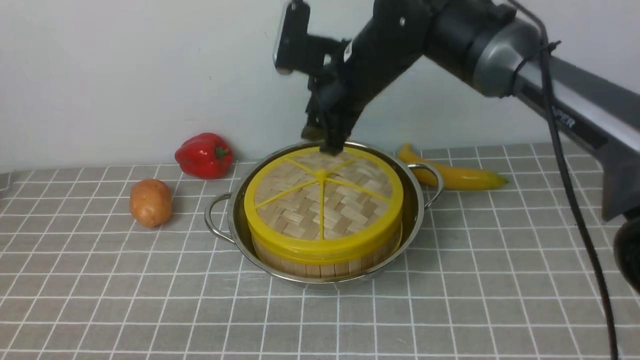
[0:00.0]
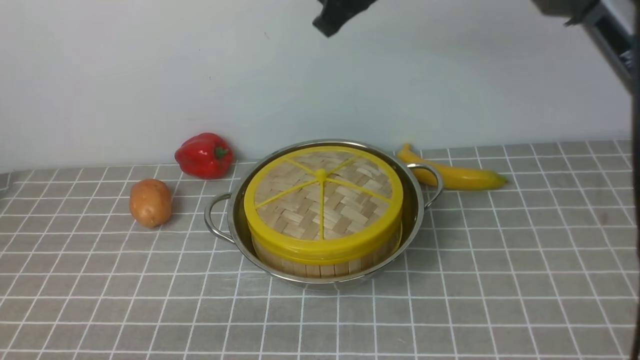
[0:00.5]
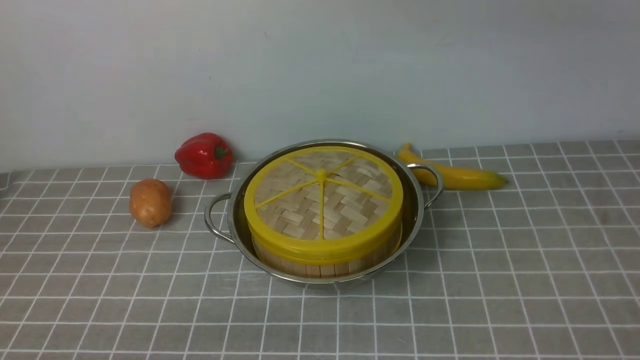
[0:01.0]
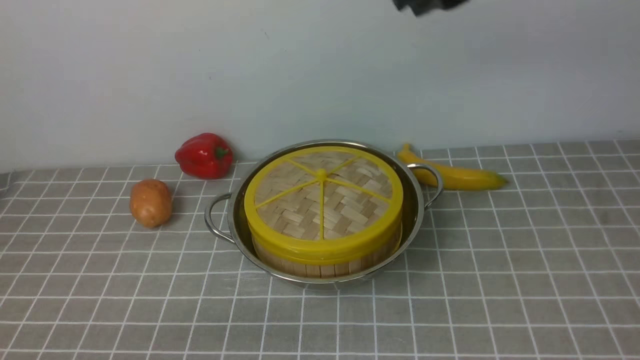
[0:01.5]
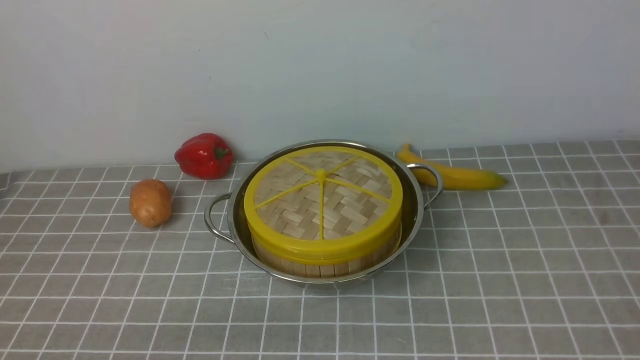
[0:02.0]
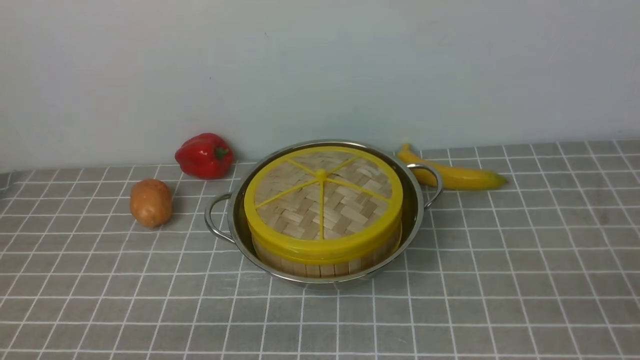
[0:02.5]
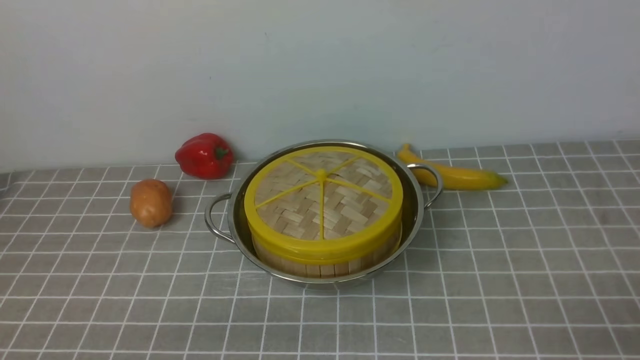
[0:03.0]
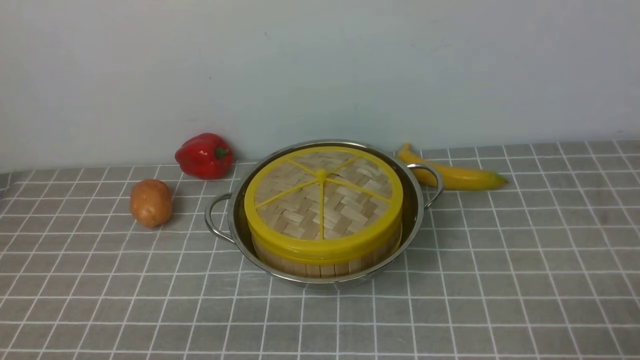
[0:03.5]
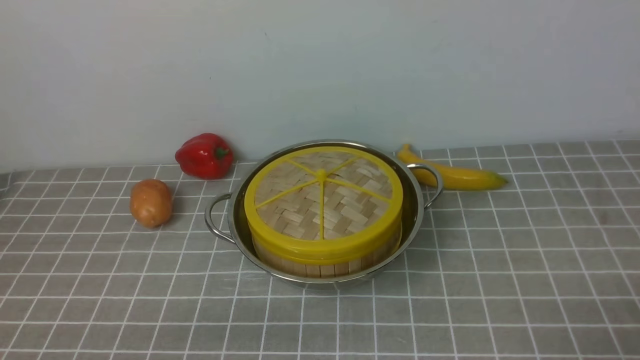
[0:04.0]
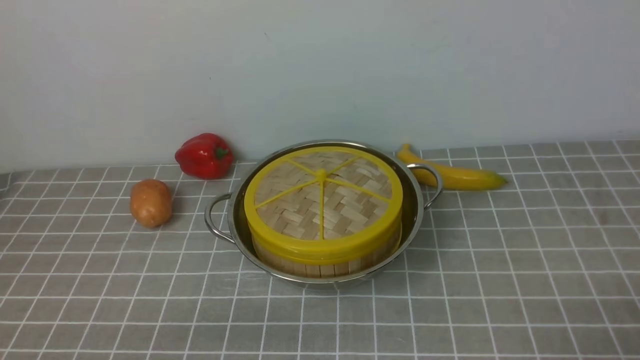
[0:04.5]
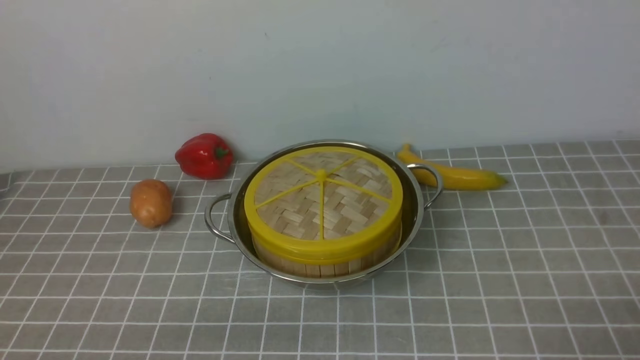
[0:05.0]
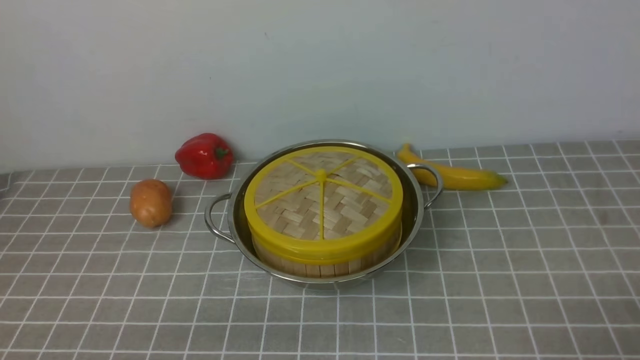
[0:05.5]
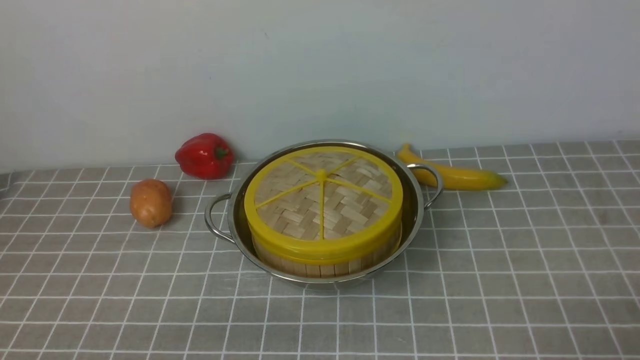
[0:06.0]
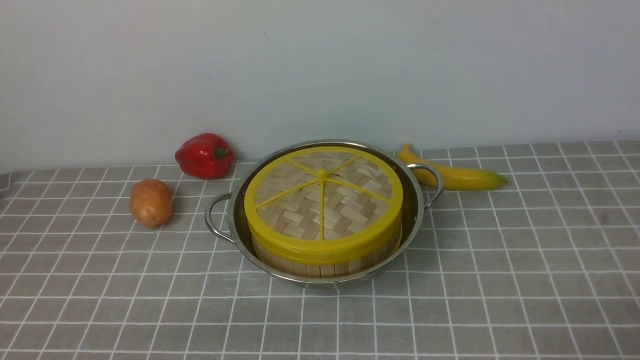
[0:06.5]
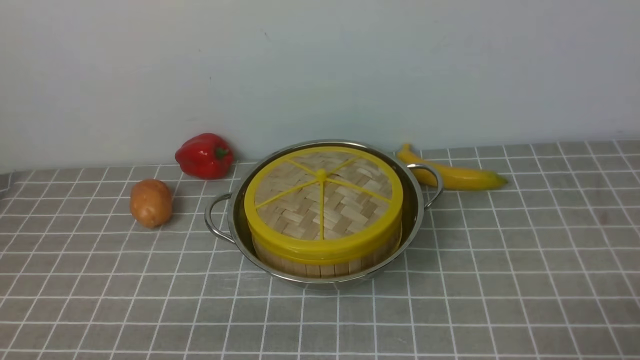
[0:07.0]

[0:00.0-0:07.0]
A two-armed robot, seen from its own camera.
Task of the whole recording: place the steamer in the pot on the grey tablecloth, and put the lid on the steamer.
0:00.0 to 0:02.0: The right gripper is displaced to the right and backward by approximately 35 cm, and closes.
0:05.0 to 0:07.0: Both grippers stay about where they are.
